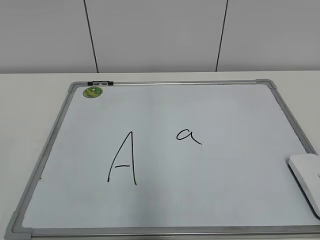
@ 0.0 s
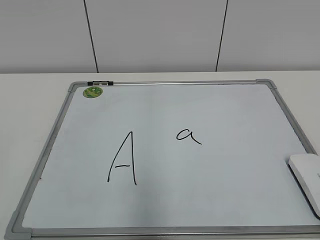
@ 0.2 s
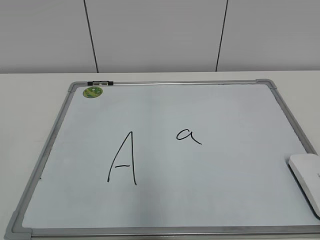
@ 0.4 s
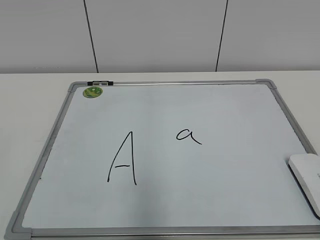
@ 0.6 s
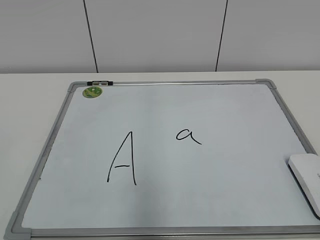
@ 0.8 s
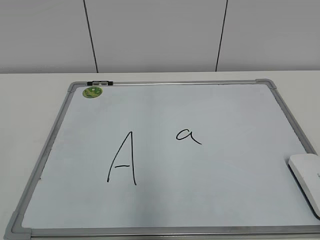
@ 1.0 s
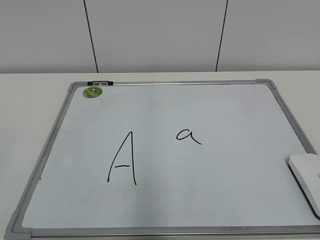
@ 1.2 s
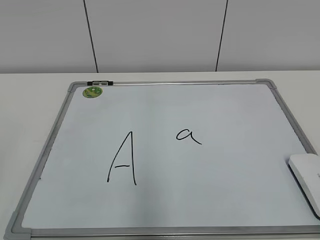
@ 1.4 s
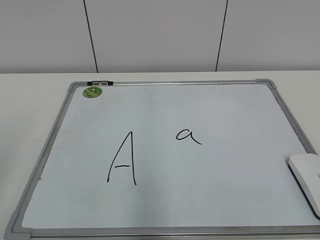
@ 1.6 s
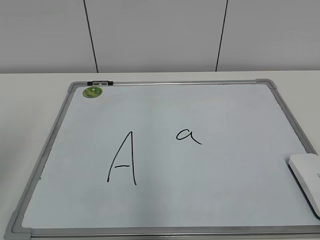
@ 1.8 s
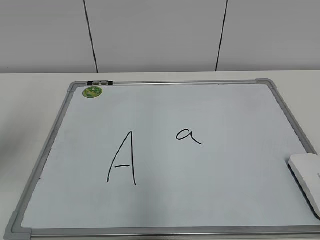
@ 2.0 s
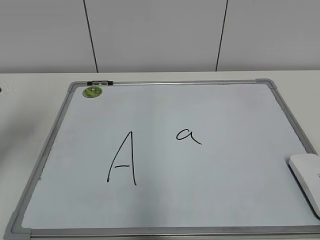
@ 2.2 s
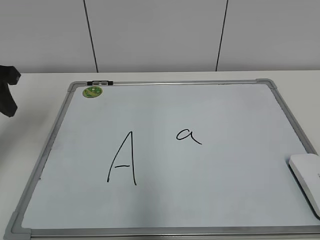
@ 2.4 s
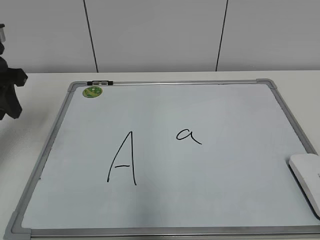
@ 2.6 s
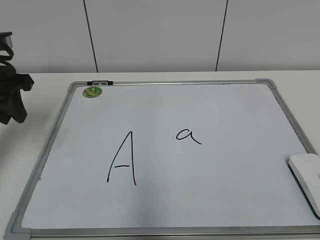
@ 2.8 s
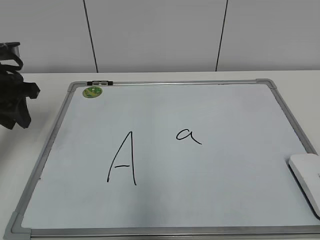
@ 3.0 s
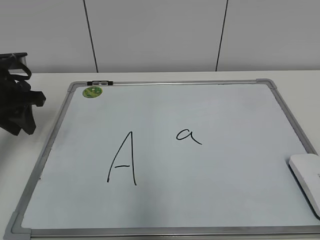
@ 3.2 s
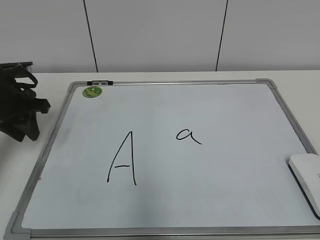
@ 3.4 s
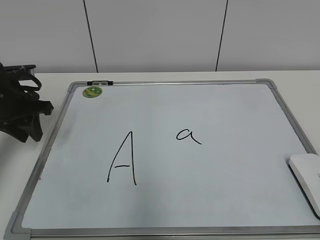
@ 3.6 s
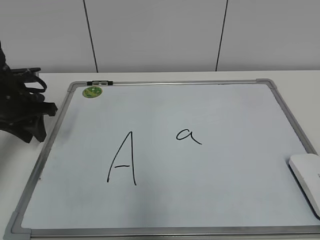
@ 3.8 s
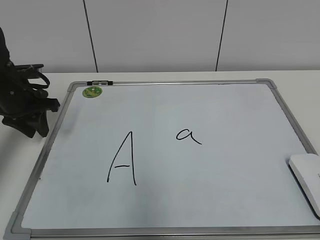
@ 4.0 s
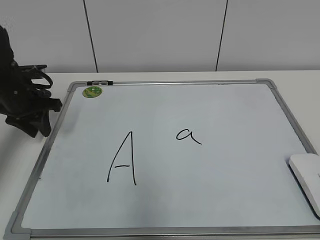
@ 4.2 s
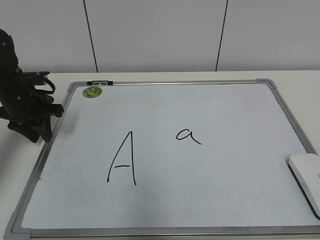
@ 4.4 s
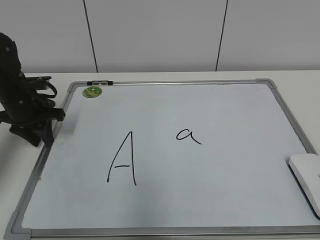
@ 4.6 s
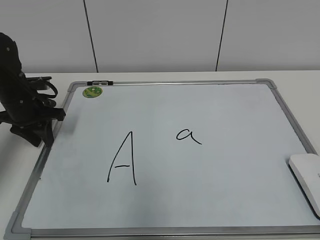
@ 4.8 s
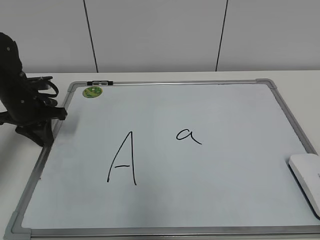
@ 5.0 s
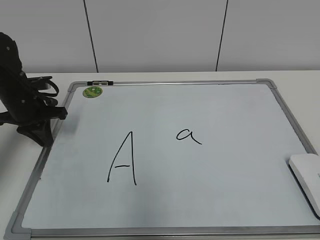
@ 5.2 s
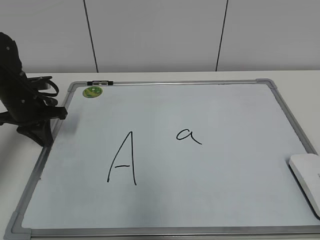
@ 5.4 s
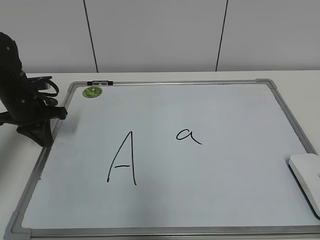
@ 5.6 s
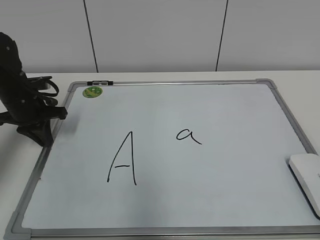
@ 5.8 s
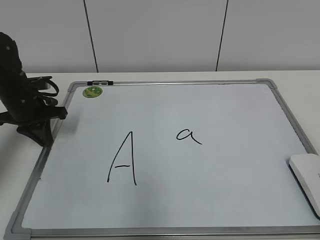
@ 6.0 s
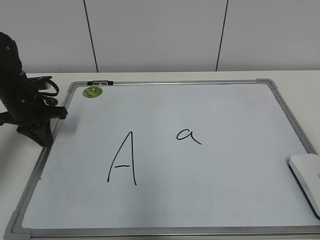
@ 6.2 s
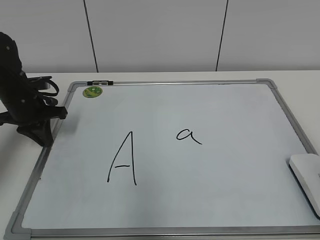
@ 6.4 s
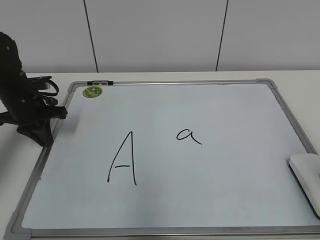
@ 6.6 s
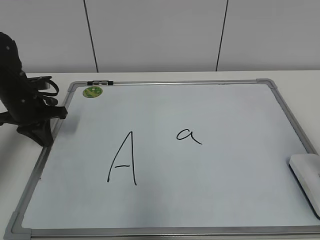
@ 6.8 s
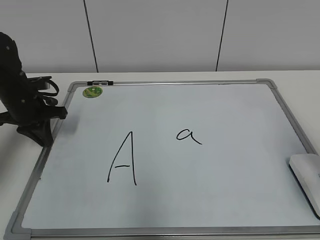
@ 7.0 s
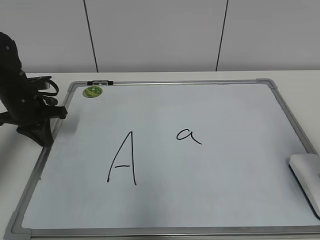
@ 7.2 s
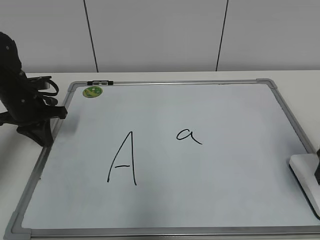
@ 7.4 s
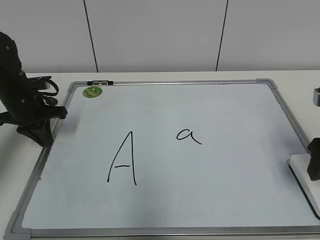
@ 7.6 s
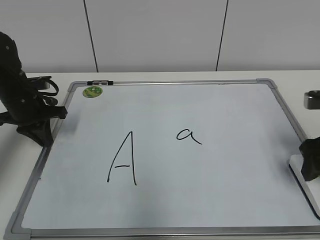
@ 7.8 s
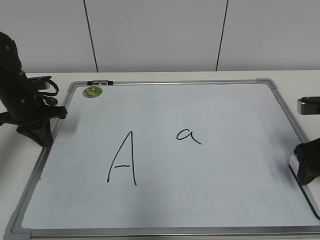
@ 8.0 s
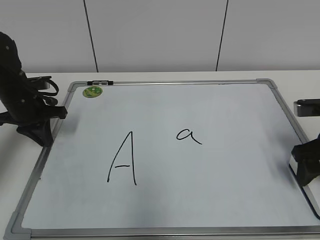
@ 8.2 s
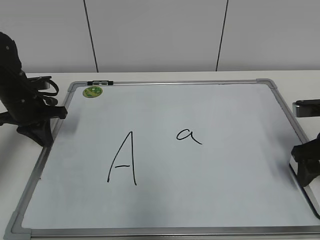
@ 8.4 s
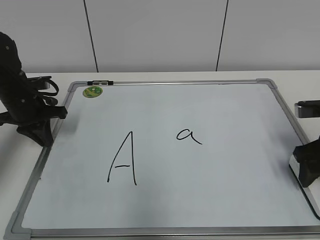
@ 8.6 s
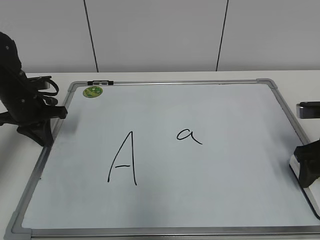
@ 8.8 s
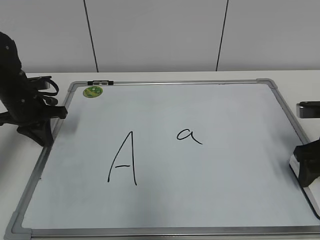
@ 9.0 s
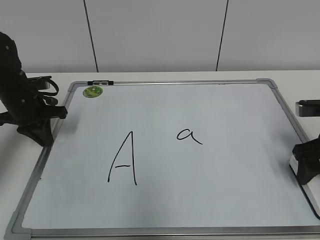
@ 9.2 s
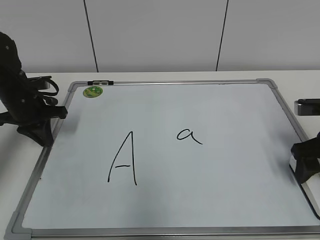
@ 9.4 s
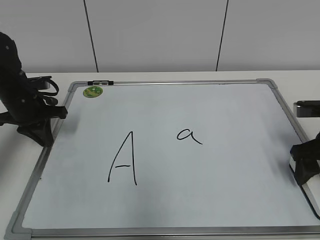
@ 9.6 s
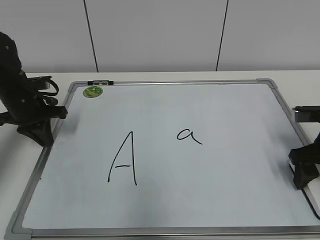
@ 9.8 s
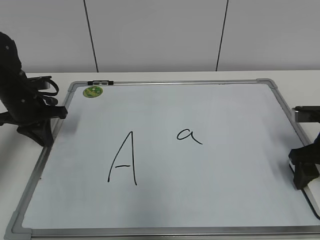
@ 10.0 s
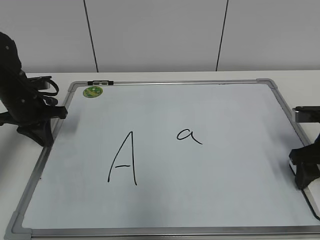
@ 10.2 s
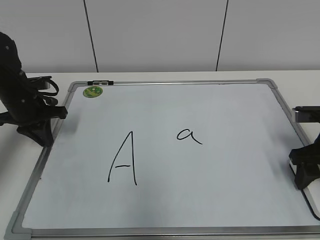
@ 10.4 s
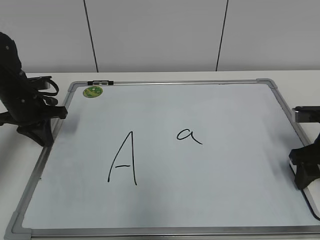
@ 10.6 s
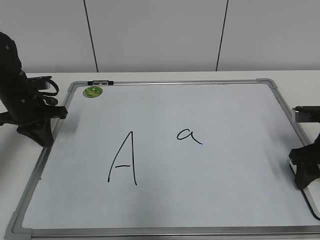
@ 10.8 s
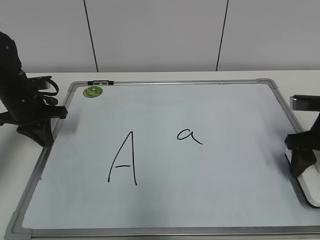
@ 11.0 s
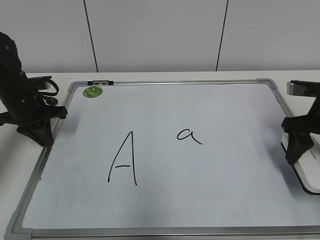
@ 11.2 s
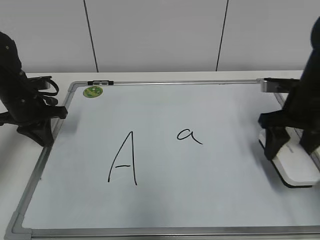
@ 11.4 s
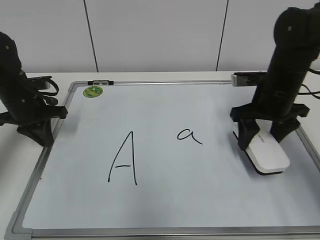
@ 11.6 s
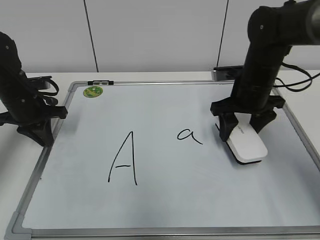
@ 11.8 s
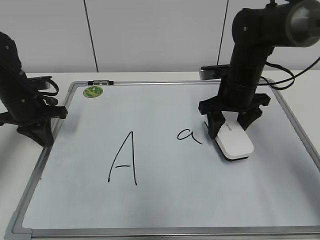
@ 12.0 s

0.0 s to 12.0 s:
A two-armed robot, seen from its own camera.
Task of the whole recording: pick up the eraser on the blackboard and erase the letter "a".
Step, 0.0 to 5.0 s: Hold the drawing board steady with your left hand.
Step, 5.2 to 10.6 s: Grab the eraser with your right hand.
1.6 to 3.0 s: The left gripper goes roughly 25 cm forward.
3.0 to 4.4 s: The left gripper heads downward and forward, covering some 10 cm.
4.4 to 6.0 s: The left gripper closes its fingers.
6.0 to 7.6 s: The right gripper travels forward and downward by about 20 cm, and opens up.
7.6 to 9.0 s: The right gripper moves some 5 cm.
9.0 to 10.4 s: The right gripper closes.
10.4 to 12.0 s: The right gripper goes about 20 cm to the left and forward.

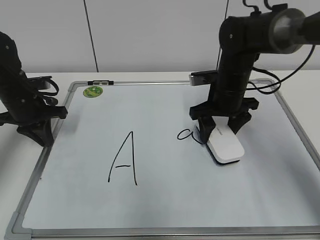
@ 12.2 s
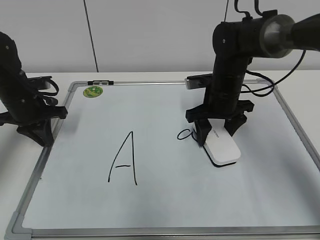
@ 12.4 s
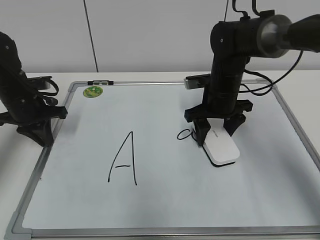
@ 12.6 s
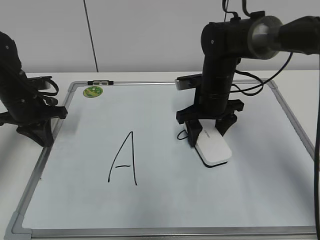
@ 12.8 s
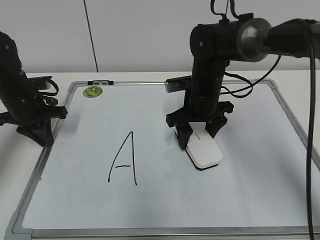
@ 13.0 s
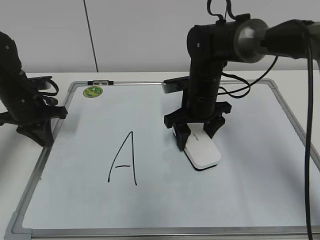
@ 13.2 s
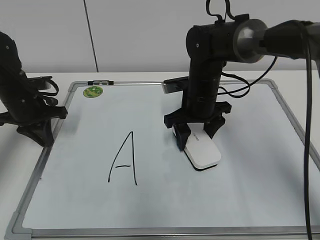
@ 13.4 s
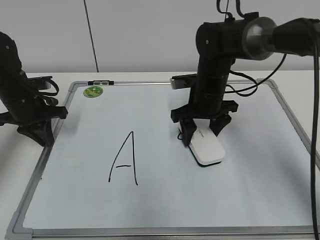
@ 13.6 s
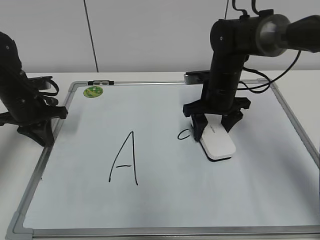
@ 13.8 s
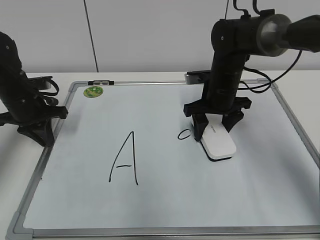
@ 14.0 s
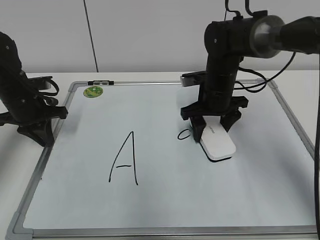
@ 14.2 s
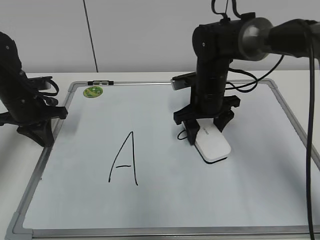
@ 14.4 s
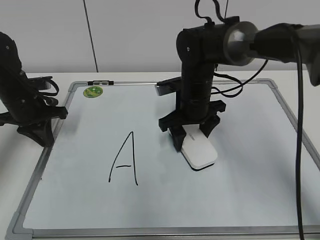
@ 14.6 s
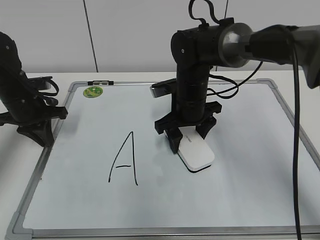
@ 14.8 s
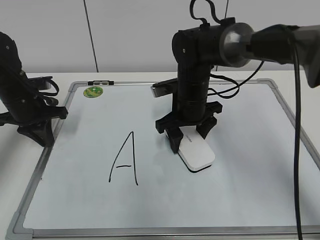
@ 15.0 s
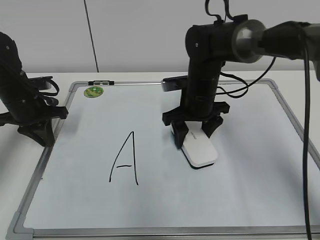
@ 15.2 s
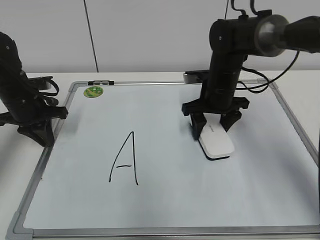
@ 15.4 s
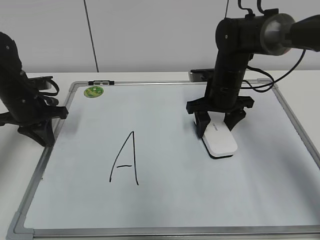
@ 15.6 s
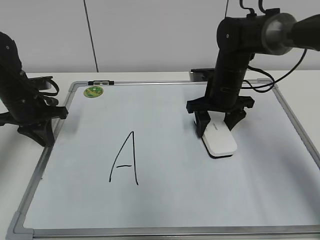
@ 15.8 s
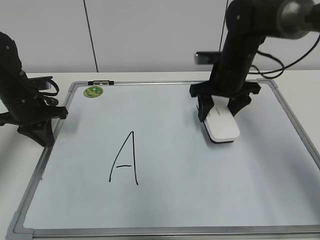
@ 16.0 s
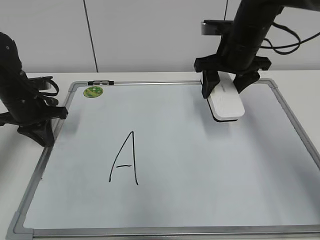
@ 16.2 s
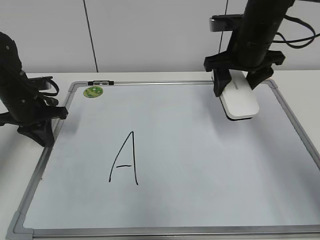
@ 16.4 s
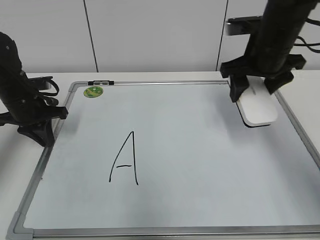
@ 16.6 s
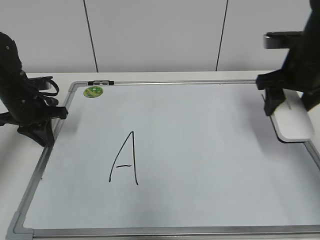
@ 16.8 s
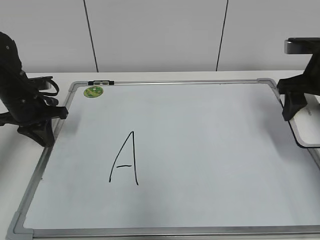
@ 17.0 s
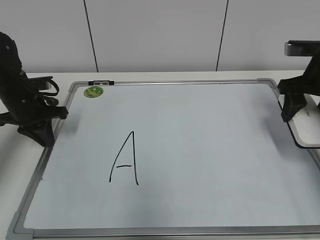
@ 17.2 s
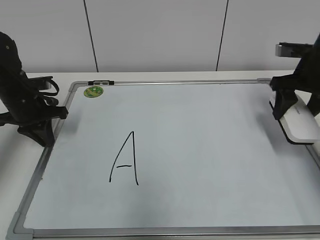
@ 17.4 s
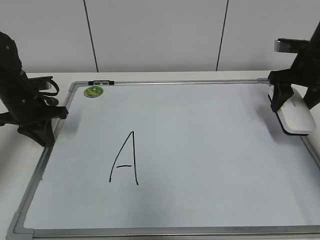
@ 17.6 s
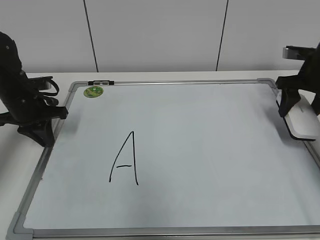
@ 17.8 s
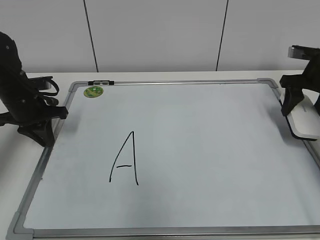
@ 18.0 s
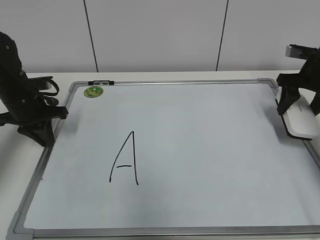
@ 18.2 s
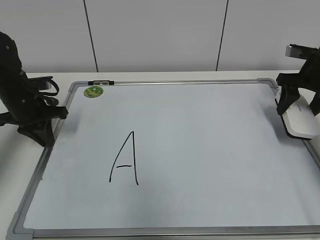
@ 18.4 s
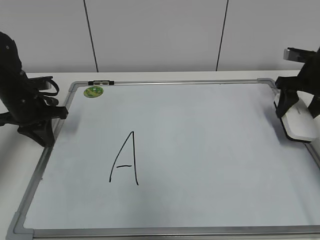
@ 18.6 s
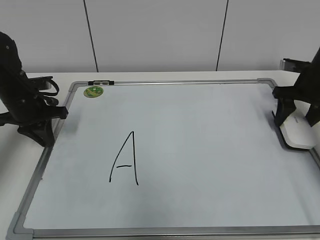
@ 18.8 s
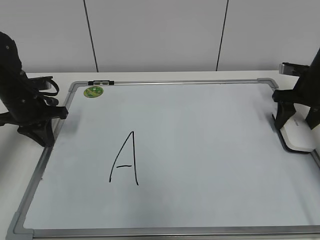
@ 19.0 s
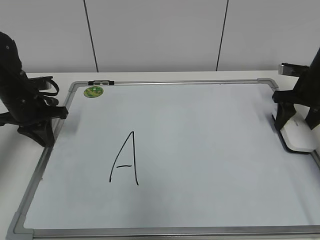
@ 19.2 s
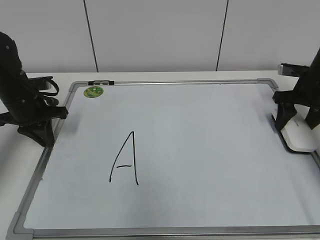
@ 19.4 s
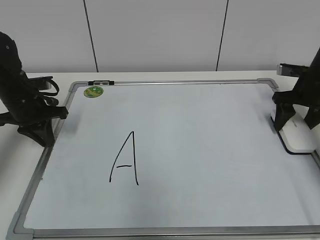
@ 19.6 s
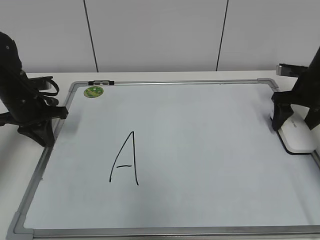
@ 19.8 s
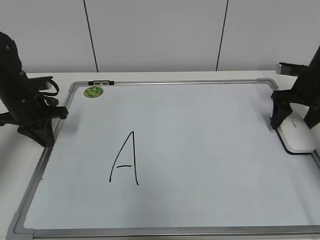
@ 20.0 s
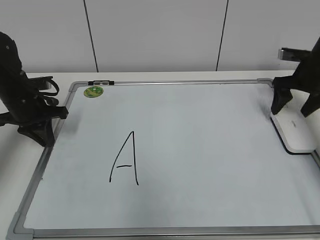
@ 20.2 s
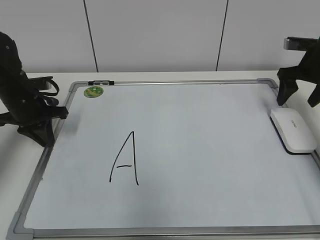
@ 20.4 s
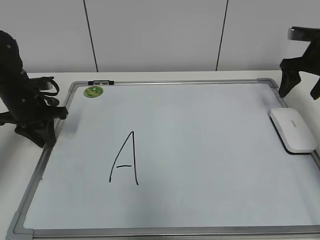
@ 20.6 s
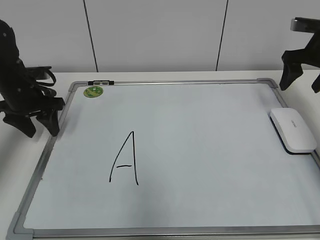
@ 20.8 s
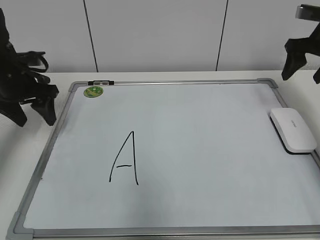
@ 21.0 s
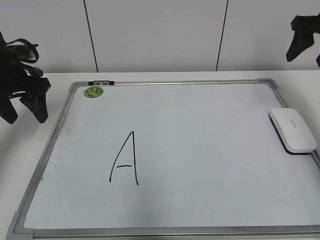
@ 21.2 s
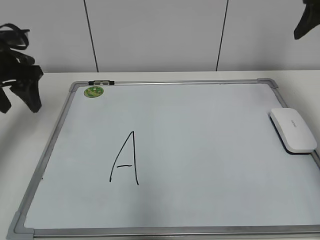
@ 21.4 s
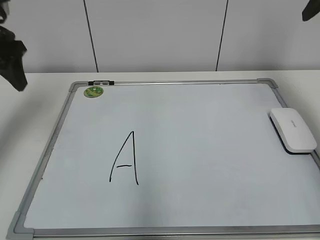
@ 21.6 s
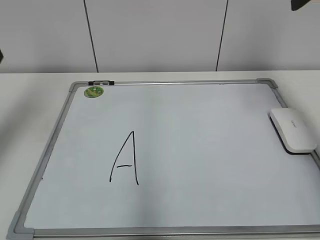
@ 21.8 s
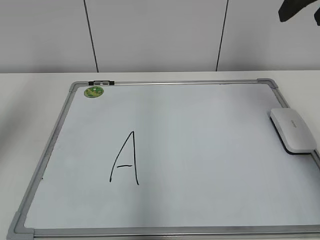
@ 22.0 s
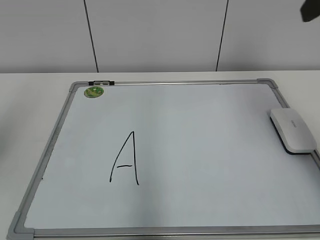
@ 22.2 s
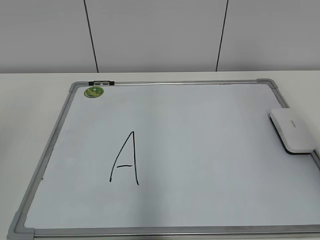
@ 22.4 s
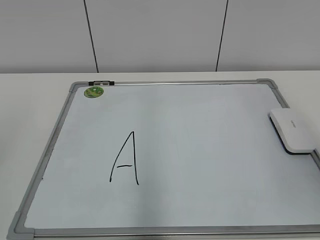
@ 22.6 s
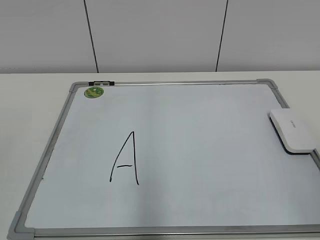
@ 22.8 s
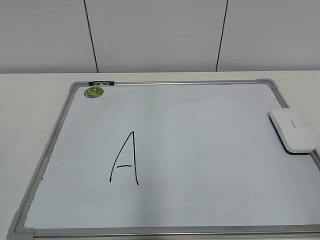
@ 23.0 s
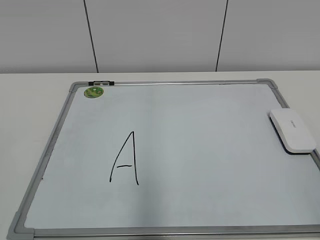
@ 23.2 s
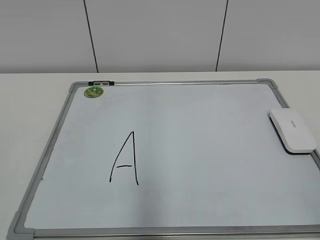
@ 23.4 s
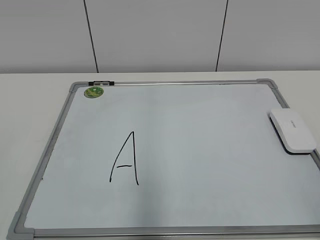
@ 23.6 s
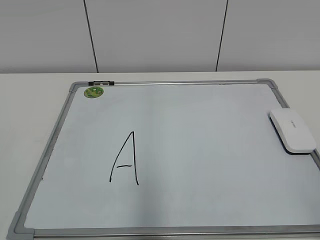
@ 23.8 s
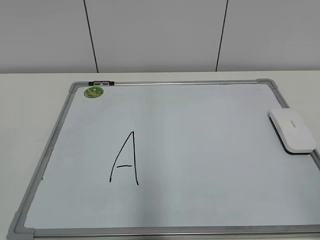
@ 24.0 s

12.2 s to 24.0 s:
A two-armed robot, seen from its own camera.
Task of the whole recording: pick up the eraser on the blackboard and erase the letter "a".
Step, 12.2 to 15.6 s: Erase the letter a with your right hand.
Step, 15.8 to 20.0 s: Put down the eraser with your right hand.
12.2 to 13.6 s: The grippers make only small movements.
13.6 to 15.2 s: The grippers move only a little.
15.2 to 16.6 s: The right gripper is displaced upward and to the right by approximately 15 cm.
16.6 to 18.2 s: The right gripper shifts about 15 cm to the right and downward.
18.2 to 19.6 s: There are only small adjustments of the grippers.
19.6 to 21.0 s: The right gripper is displaced upward by about 10 cm, and opens. Meanwhile the left gripper goes some 5 cm upward, and opens up.
21.0 to 22.6 s: Both grippers travel together backward and upward, some 35 cm. The right gripper closes up.
